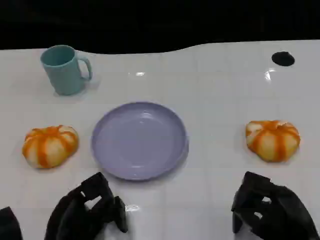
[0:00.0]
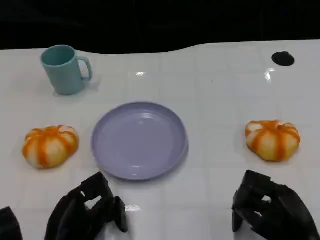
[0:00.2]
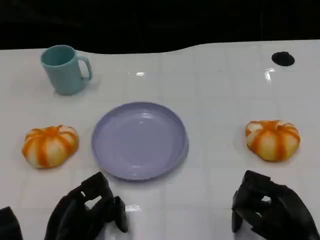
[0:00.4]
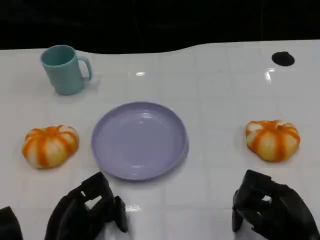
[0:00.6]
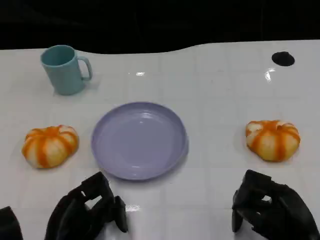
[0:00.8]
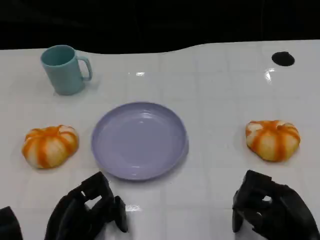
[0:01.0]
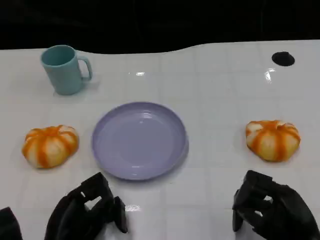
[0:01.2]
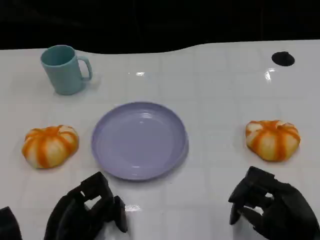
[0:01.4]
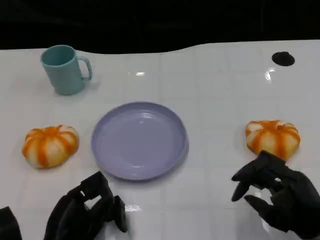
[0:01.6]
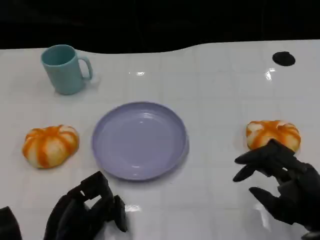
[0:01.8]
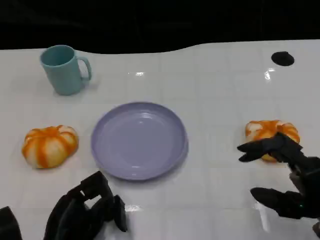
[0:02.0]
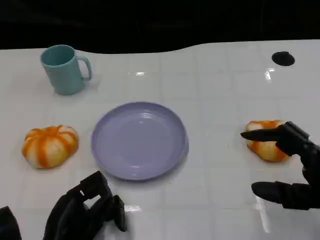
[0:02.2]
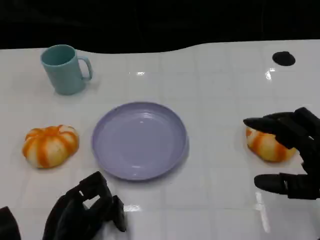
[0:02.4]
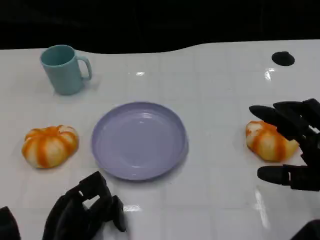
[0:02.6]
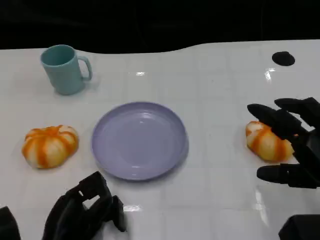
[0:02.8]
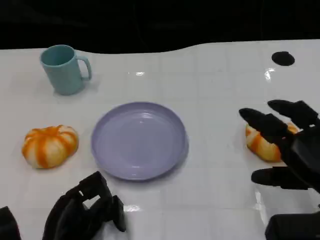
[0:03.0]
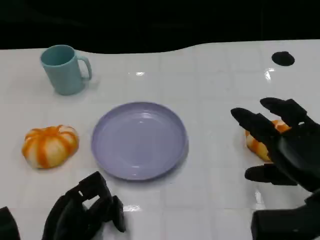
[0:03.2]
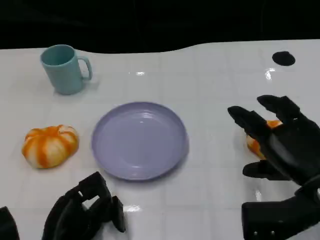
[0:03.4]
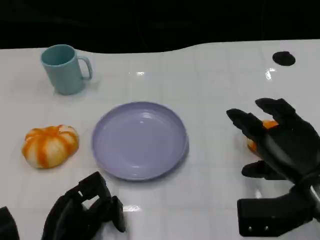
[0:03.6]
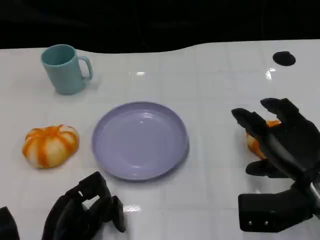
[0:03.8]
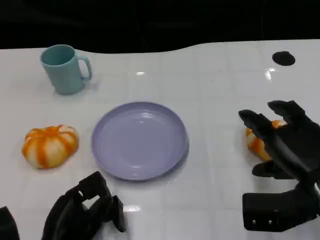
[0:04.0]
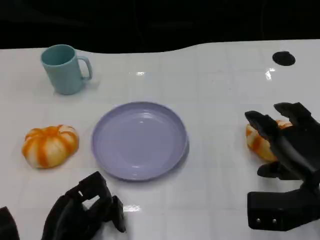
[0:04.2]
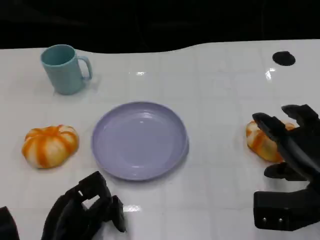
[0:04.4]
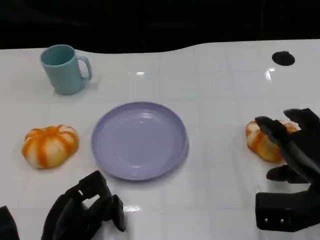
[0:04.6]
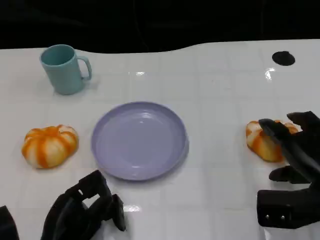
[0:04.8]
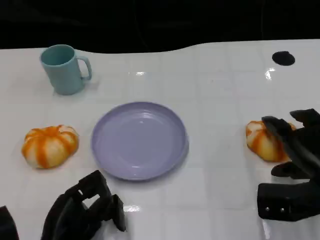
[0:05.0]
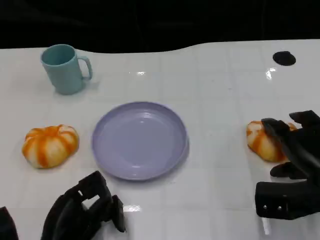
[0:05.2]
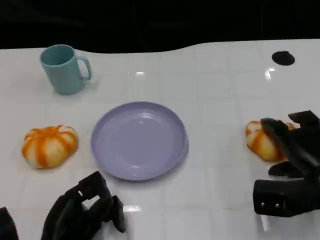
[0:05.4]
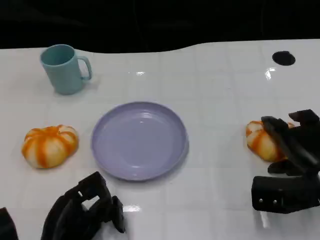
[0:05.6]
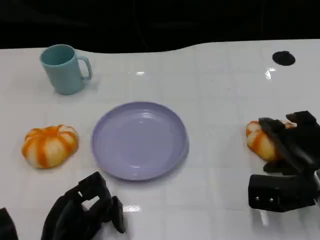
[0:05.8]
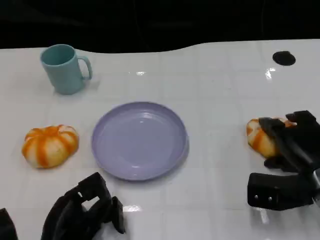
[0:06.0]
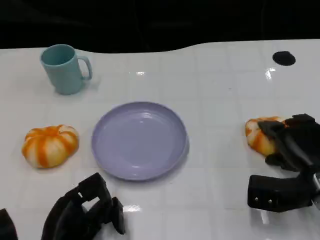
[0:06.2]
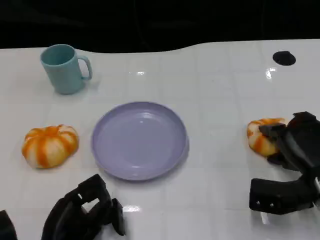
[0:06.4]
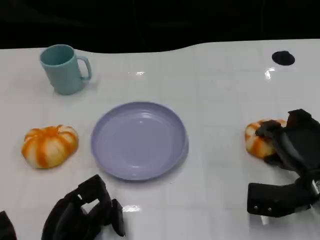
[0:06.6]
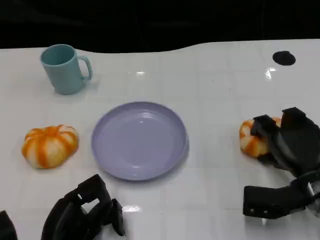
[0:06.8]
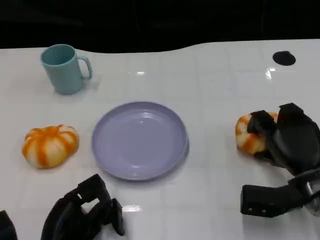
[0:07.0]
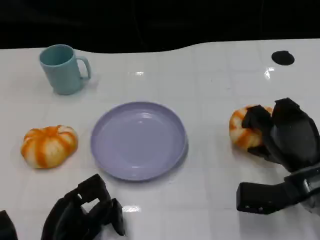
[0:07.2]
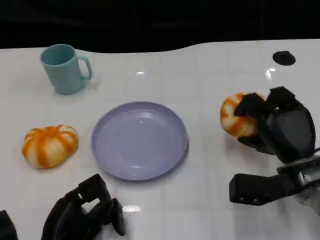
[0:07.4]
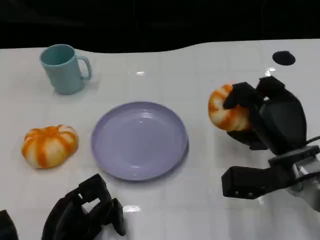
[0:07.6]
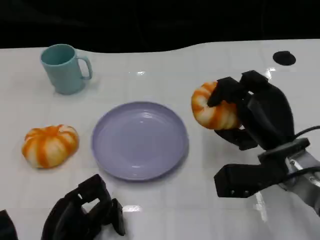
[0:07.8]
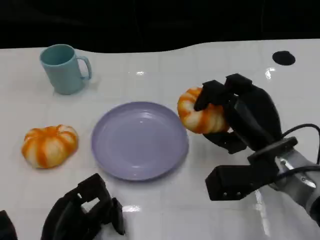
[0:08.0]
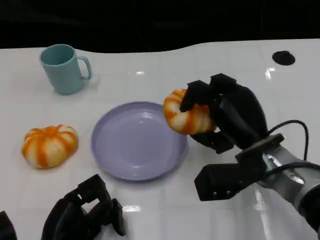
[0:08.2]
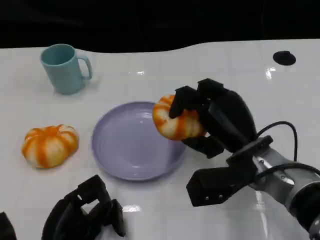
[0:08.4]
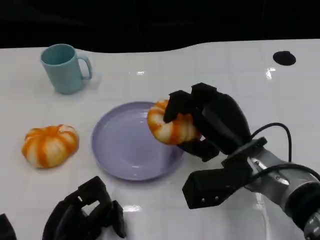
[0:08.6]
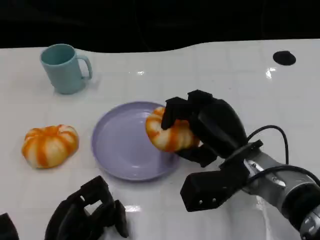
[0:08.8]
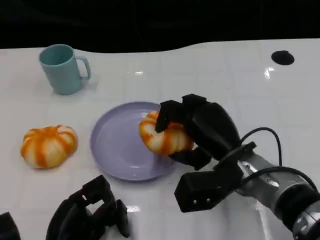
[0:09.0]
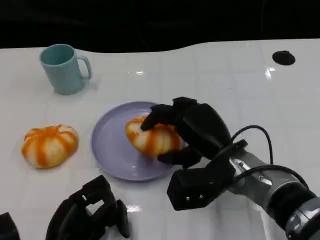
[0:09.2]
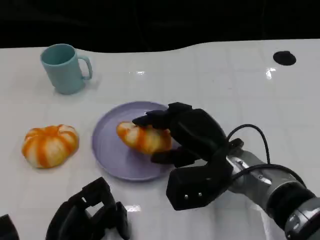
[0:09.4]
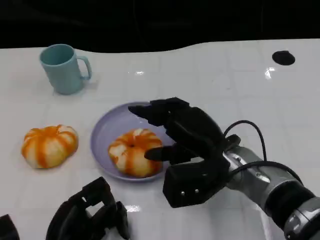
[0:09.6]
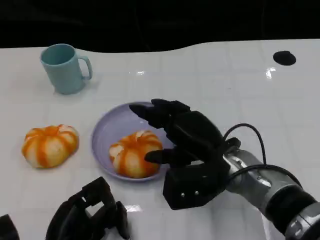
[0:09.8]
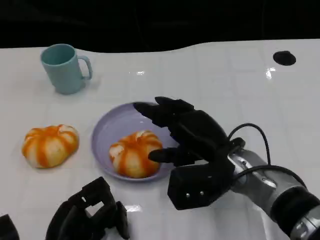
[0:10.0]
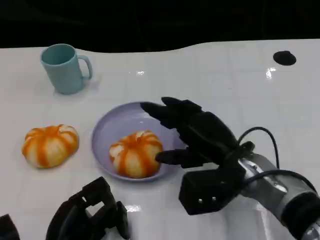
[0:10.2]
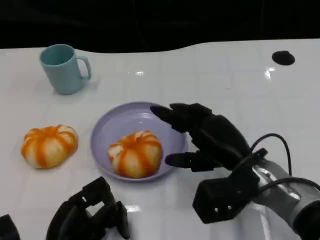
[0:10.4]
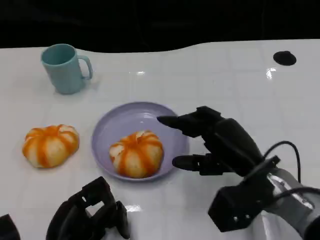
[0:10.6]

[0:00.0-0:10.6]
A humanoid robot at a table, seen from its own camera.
Task of the whole recording: Grasp the bread from the table and place it into the plate.
0:00.0 to 0:01.6: The hands move only a little.
0:01.6 to 0:03.0: The right hand is displaced upward by some 5 cm.
0:03.0 to 0:04.6: The right hand shifts by approximately 5 cm.
0:04.6 to 0:06.0: The right hand ends up about 5 cm from where it was.
0:06.0 to 0:07.6: The right hand travels to the left by approximately 5 cm.
0:07.6 to 0:09.0: The right hand travels to the left by some 10 cm.
0:09.0 to 0:10.6: The hands stay close to where they were, moving slightly.

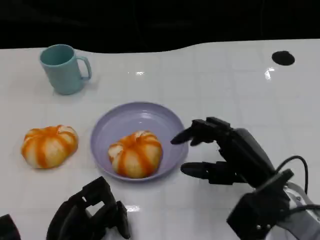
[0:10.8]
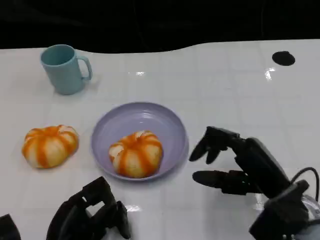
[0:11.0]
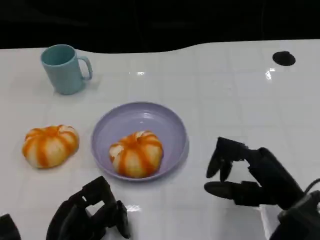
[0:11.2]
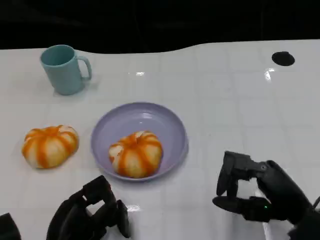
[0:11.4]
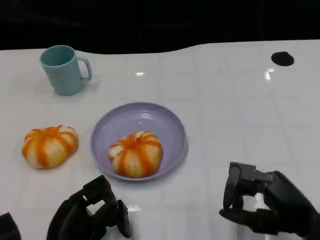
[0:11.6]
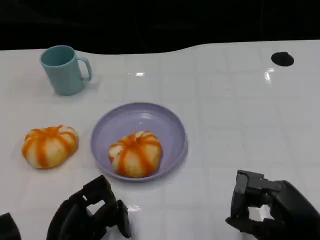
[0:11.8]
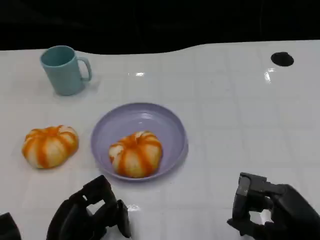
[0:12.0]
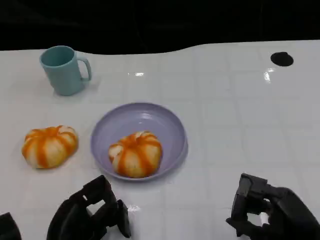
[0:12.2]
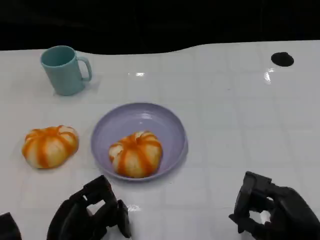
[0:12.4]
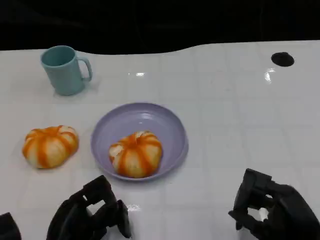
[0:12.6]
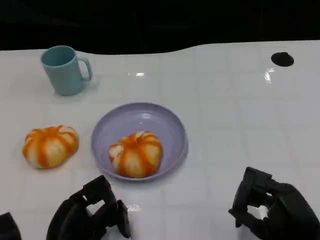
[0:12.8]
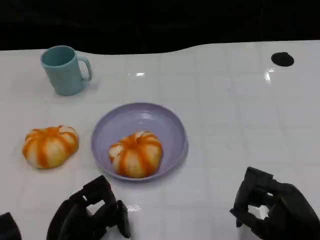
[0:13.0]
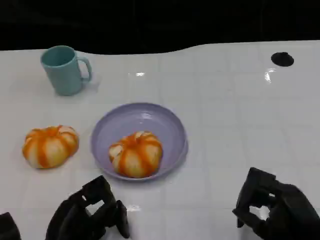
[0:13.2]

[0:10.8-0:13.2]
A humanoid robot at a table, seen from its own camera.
Task of the whole recording: Grasp the bread from the table and place it into the plate.
0:10.8 to 0:12.0: The right hand shifts some 10 cm backward and to the right.
0:12.0 to 0:13.2: The hands make only small movements.

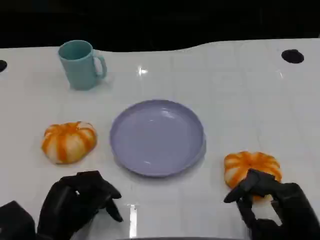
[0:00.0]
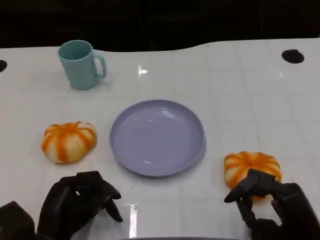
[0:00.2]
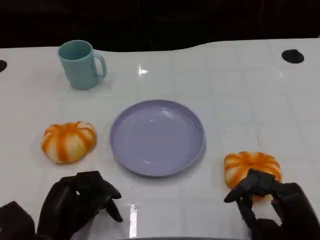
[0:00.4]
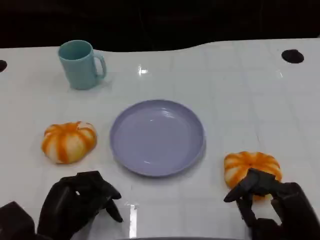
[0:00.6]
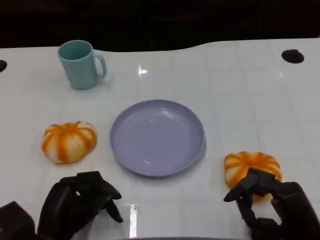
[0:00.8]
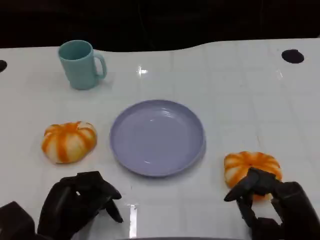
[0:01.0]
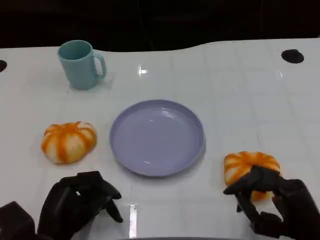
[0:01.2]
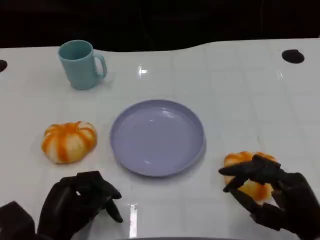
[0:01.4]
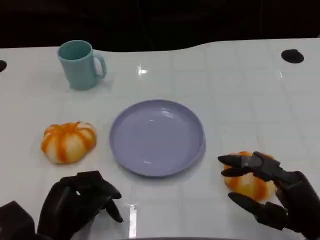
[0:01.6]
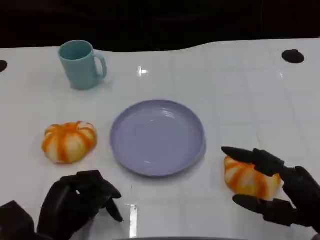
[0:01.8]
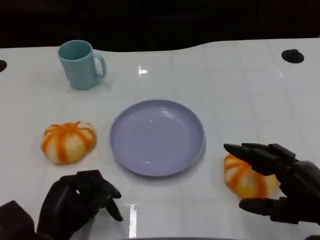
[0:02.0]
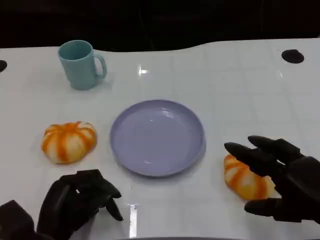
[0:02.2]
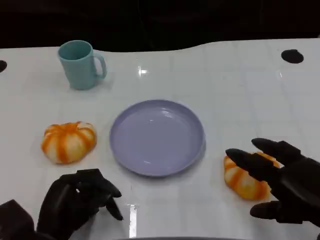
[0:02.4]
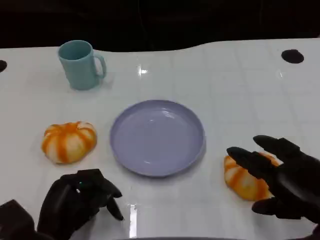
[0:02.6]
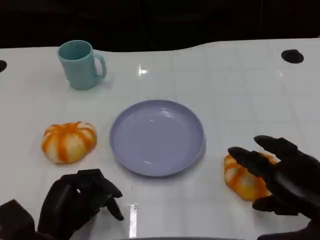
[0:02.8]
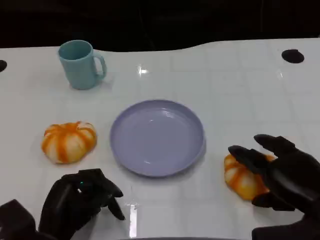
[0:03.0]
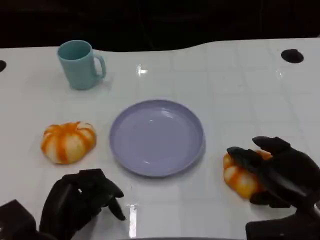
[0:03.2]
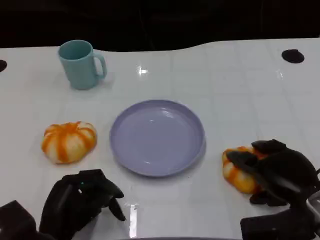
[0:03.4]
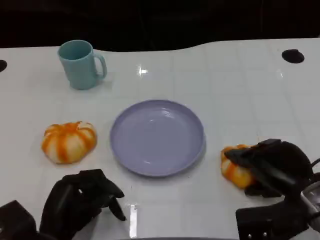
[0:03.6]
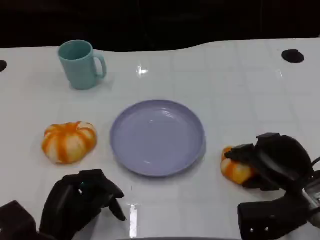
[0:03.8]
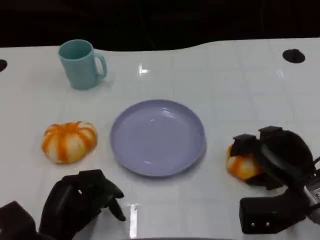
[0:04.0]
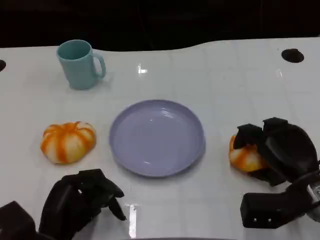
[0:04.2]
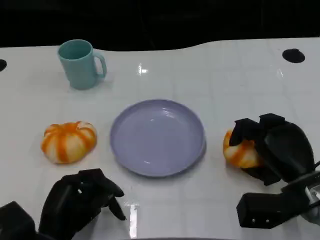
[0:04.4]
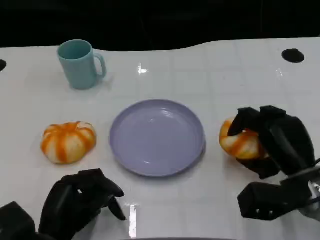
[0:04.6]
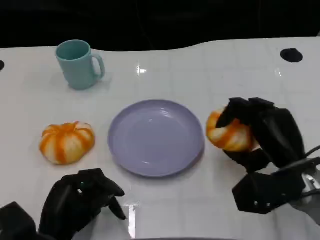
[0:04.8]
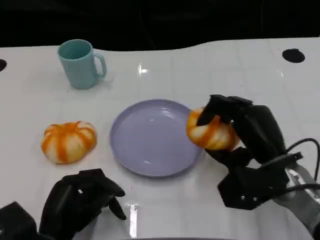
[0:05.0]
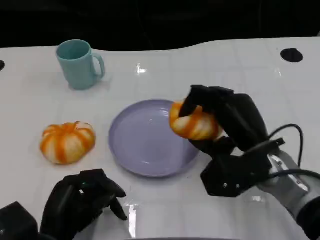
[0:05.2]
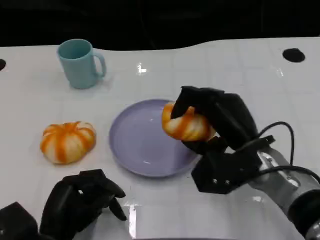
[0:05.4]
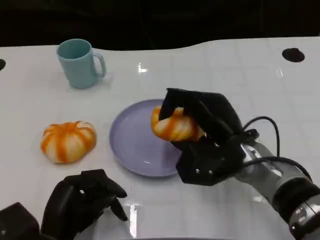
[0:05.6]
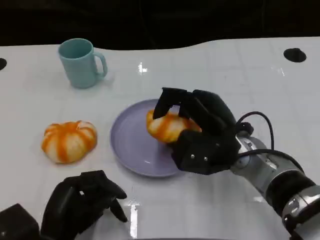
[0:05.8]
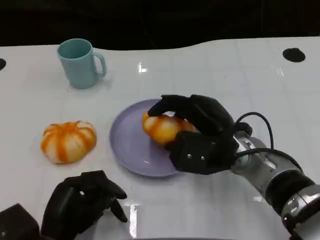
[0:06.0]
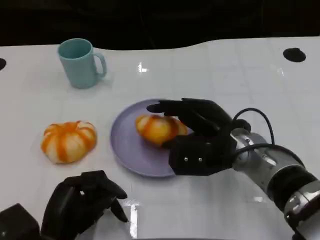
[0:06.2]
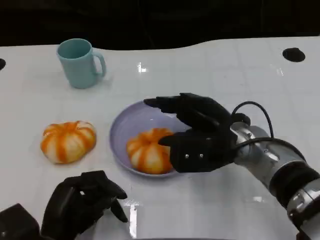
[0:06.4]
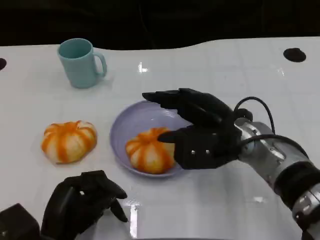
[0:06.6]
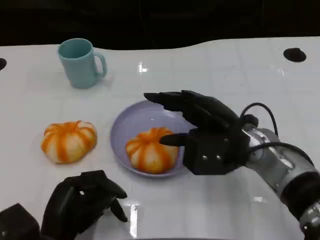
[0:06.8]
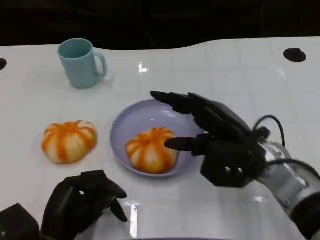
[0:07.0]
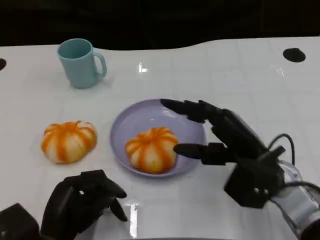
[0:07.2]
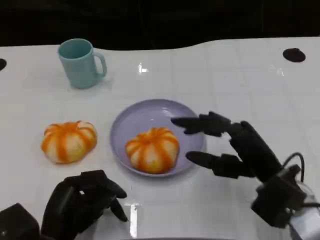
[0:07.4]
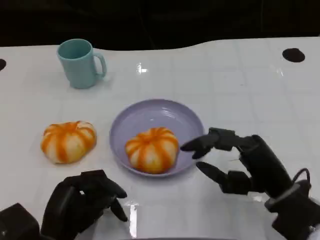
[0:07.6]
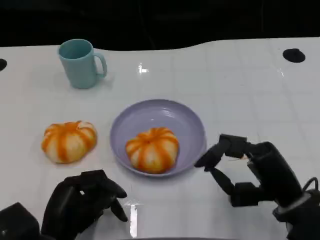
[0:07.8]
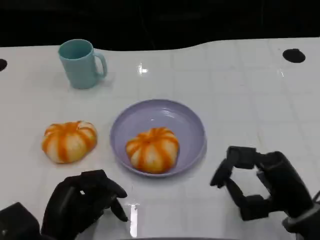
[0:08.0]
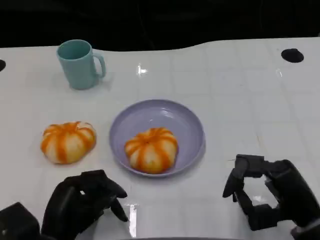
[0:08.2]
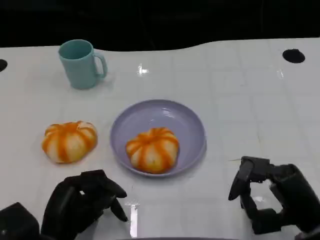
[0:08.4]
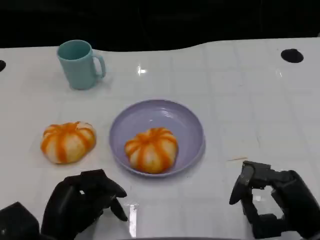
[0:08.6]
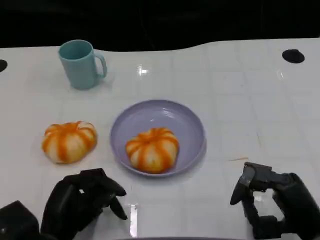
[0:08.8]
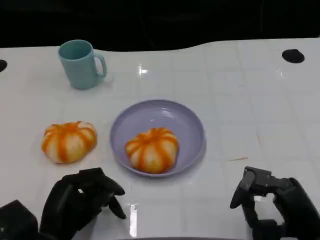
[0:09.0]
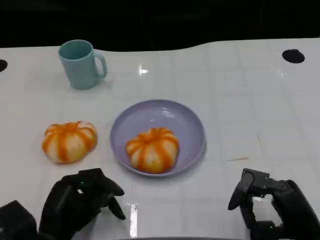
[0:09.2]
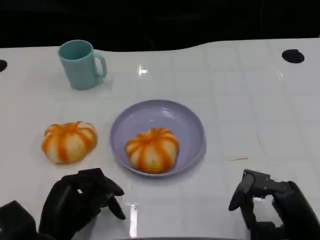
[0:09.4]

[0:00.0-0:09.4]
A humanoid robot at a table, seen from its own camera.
Task of the whole recording: Grasp the bread from the table and place it into the plate.
0:00.0 to 0:01.6: The hands stay close to where they were, moving slightly.
0:01.6 to 0:03.2: The right hand shifts by about 5 cm.
0:03.2 to 0:04.8: The right hand ends up approximately 5 cm from where it was.
0:04.8 to 0:06.2: The right hand shifts about 10 cm to the left.
0:06.2 to 0:07.8: The right hand goes about 15 cm backward and to the right.
0:07.8 to 0:09.4: The right hand moves roughly 5 cm.
